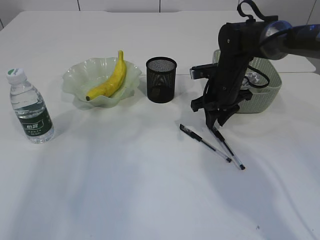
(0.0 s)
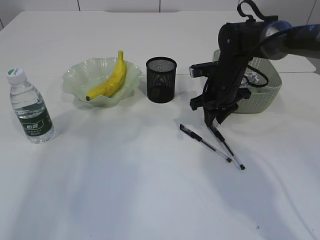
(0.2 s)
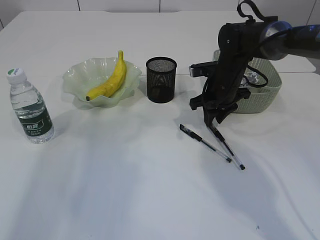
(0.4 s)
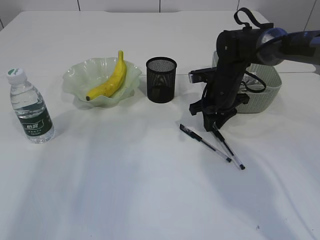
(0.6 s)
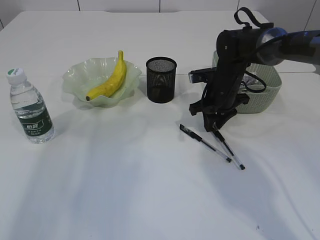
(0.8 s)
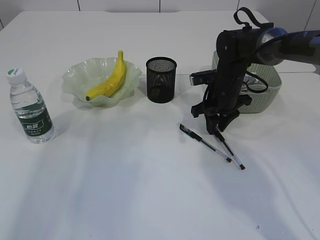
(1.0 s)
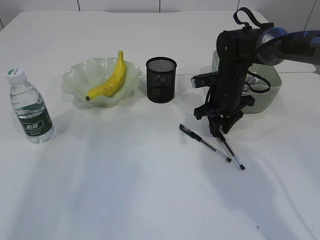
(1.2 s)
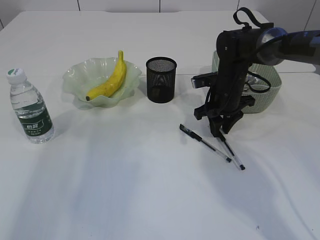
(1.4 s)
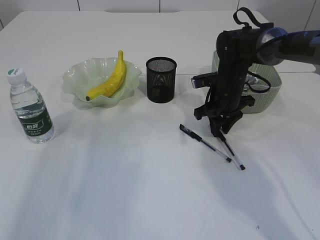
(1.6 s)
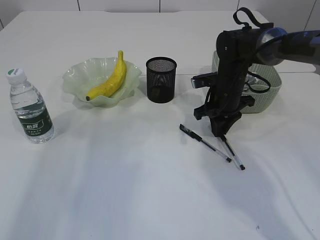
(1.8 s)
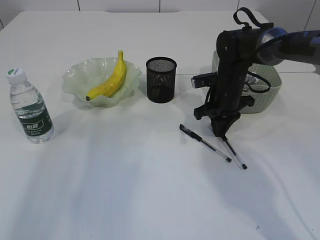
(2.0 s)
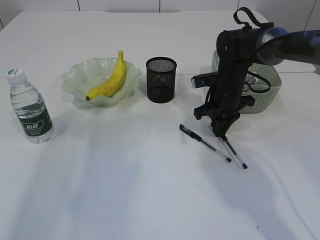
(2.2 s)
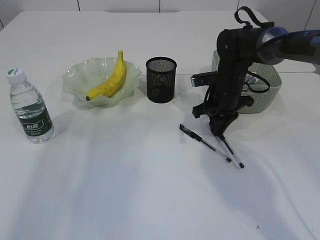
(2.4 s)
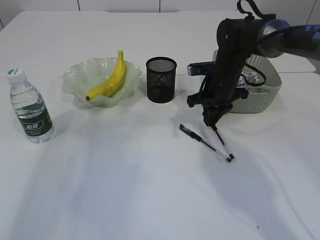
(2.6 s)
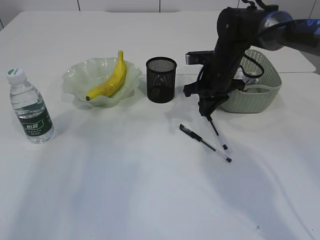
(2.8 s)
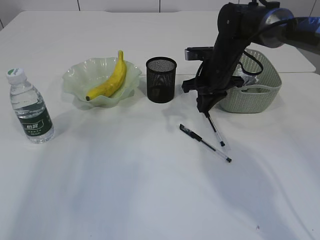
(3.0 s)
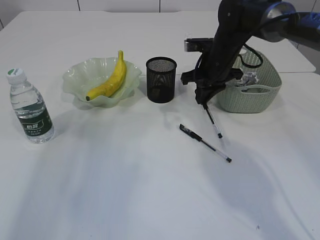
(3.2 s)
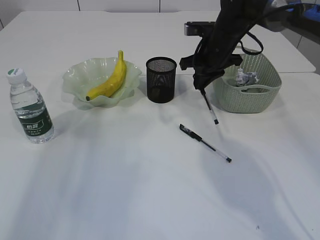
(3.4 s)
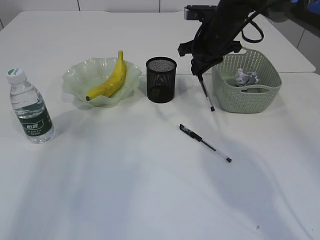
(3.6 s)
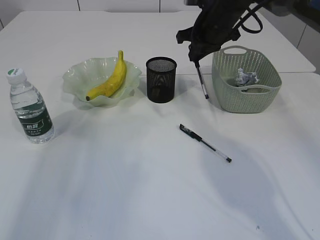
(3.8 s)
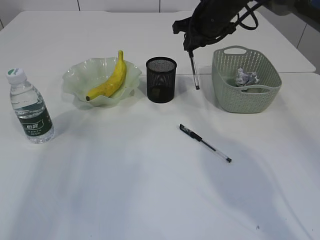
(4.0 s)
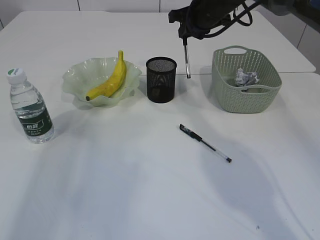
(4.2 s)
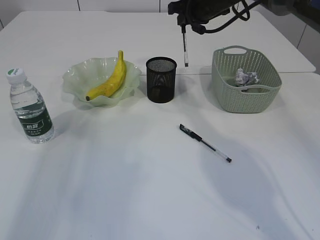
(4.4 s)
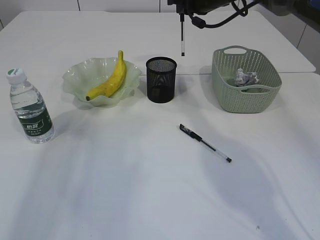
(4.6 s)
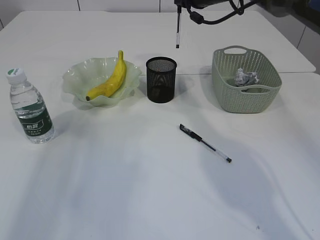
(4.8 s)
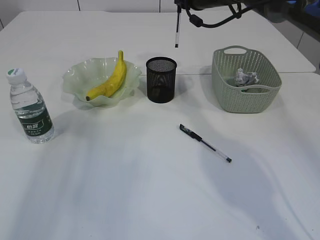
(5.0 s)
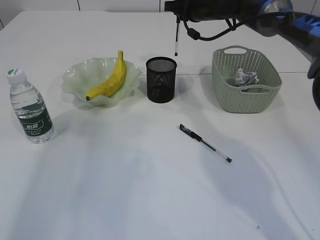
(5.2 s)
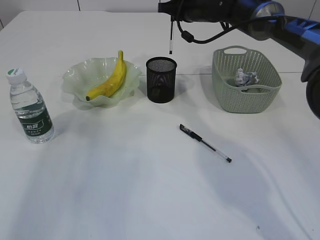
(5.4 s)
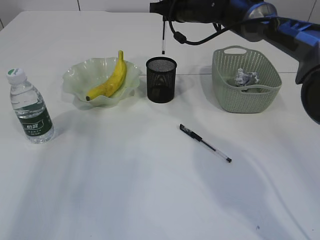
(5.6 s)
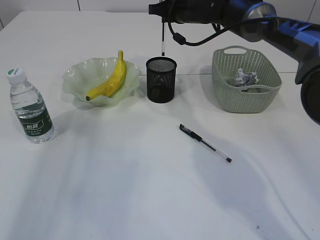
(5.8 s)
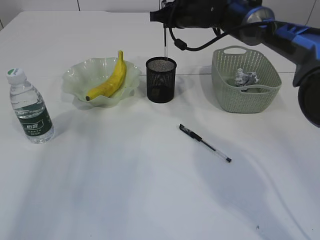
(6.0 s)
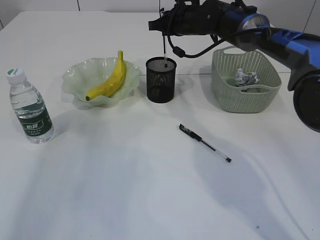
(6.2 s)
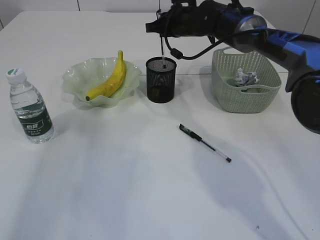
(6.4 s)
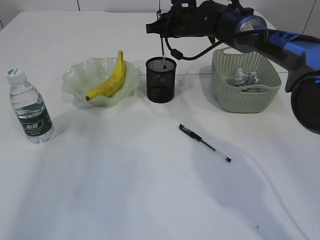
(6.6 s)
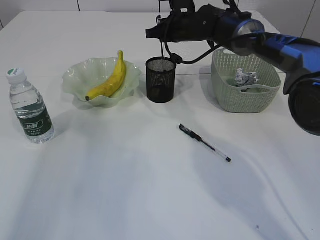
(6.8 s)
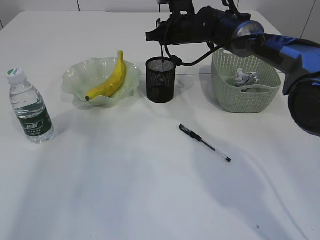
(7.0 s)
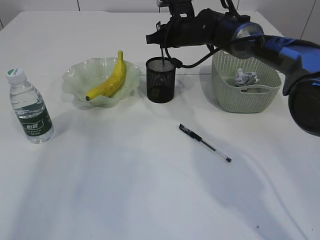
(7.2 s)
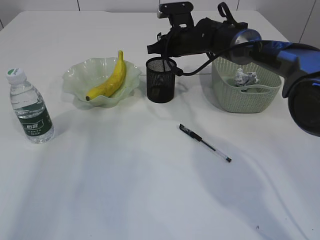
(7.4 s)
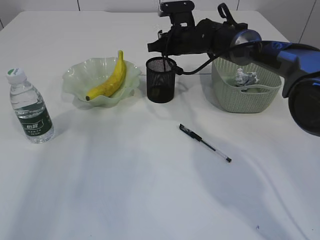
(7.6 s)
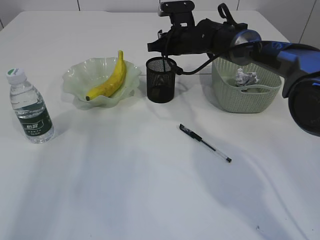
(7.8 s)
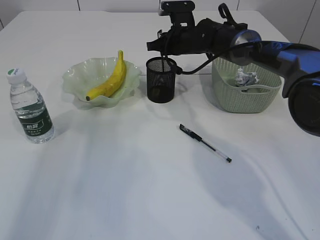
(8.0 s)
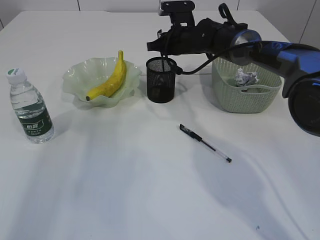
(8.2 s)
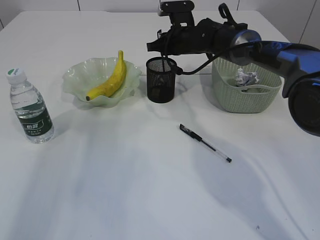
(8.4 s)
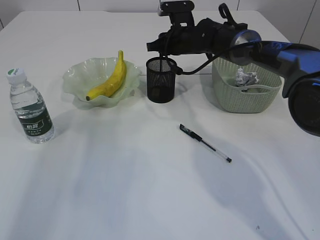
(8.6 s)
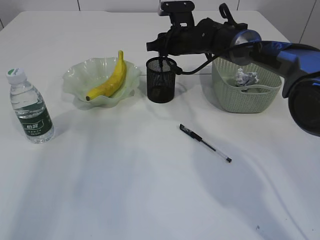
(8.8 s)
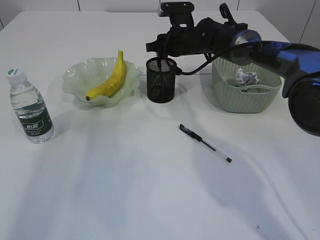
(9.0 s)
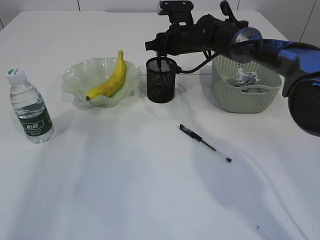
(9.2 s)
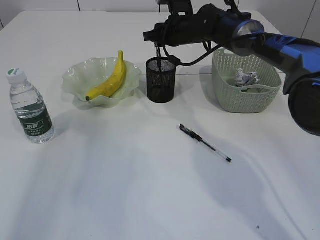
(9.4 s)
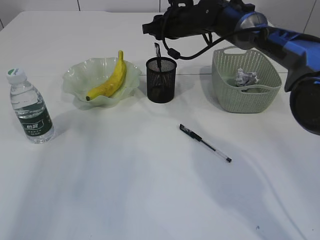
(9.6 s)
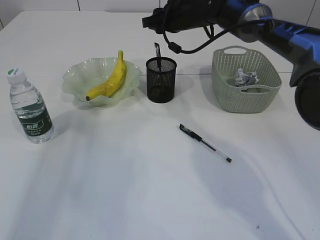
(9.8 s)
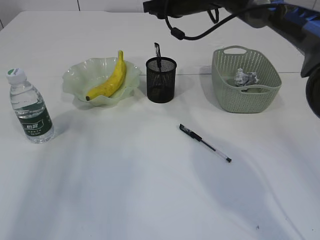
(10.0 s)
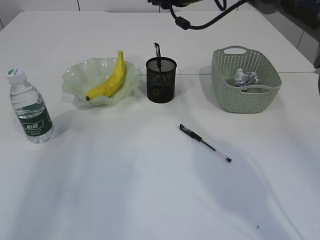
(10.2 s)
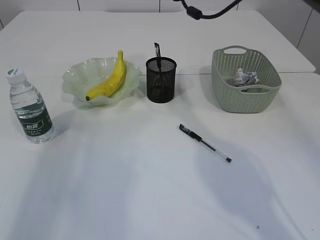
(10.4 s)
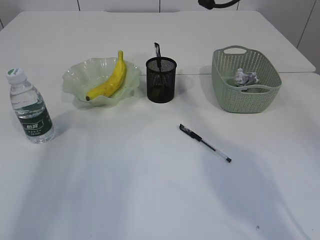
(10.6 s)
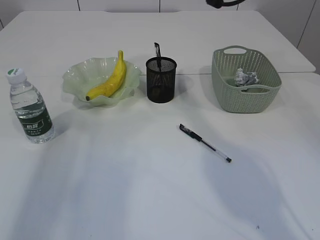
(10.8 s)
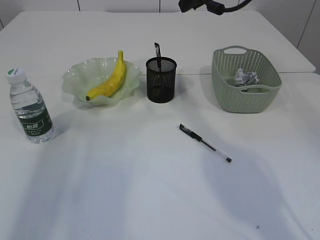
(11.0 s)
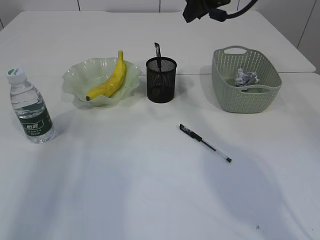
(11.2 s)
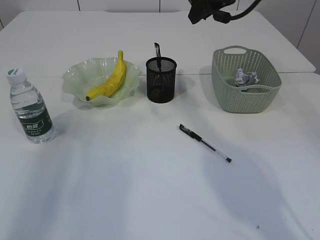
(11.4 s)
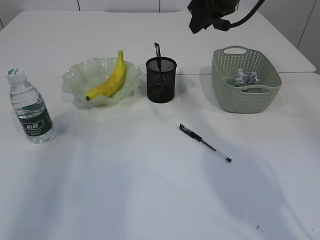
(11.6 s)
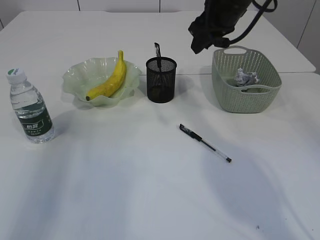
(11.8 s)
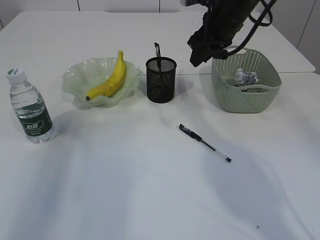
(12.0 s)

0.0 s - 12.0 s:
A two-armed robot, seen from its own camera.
Step, 0.0 s - 3.4 s: Pick up the pen with right arm.
Step, 3.6 s - 9.4 s: Place the pen into the pen holder.
0.0 s - 1.6 s: The grippers stay close to where they were, moving slightly.
1.6 s - 3.0 s: The right gripper moves about 5 cm.
3.0 s - 4.4 s: The right gripper shifts about 10 cm upward and forward.
4.4 s - 6.0 s: The right gripper moves roughly 5 cm.
6.0 s - 7.6 s: The right gripper moves downward, some 5 cm.
7.6 s - 9.0 s: The right gripper opens.
9.0 s - 10.4 s: The right gripper shifts about 15 cm upward.
10.4 s - 12.0 s: The right gripper is displaced downward by roughly 5 cm.

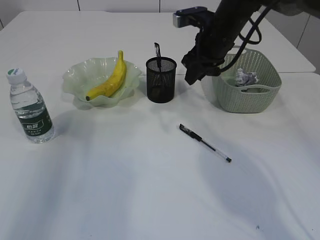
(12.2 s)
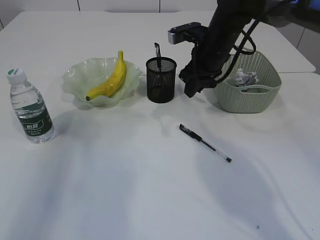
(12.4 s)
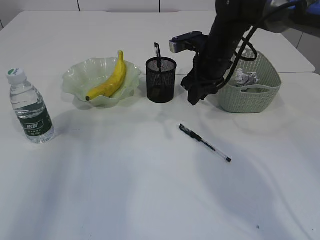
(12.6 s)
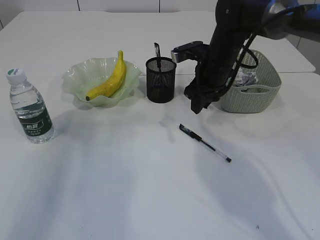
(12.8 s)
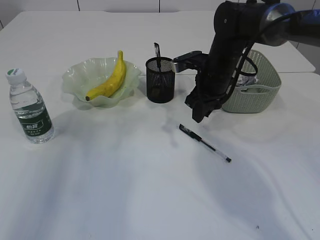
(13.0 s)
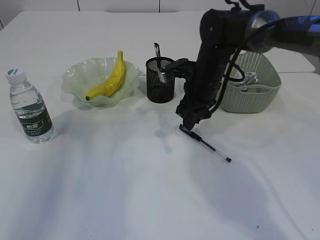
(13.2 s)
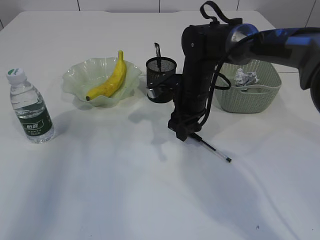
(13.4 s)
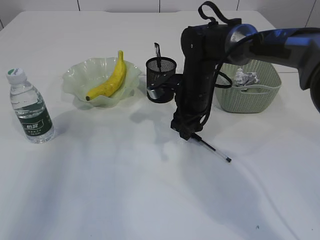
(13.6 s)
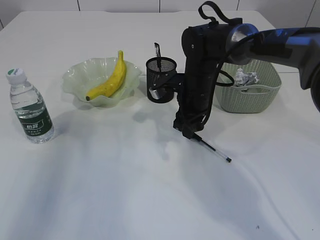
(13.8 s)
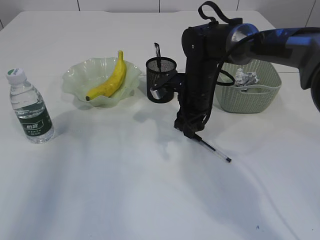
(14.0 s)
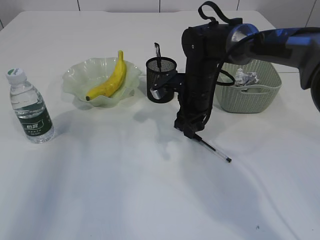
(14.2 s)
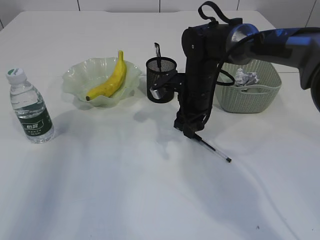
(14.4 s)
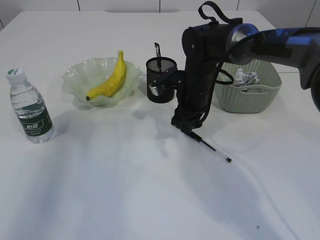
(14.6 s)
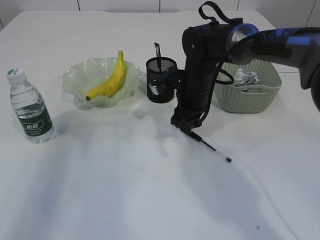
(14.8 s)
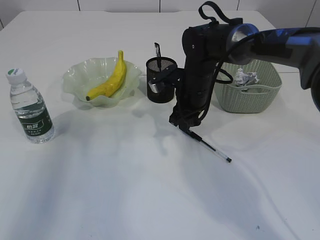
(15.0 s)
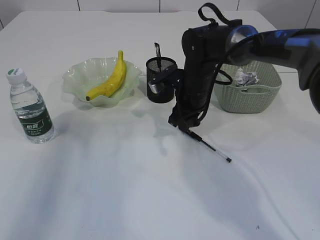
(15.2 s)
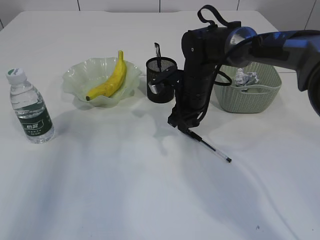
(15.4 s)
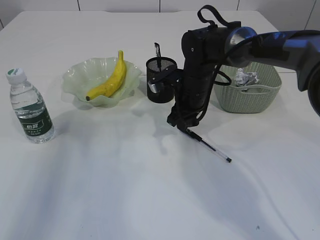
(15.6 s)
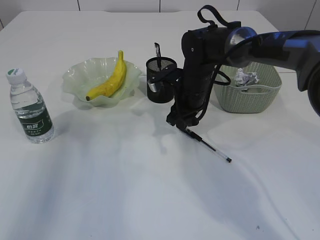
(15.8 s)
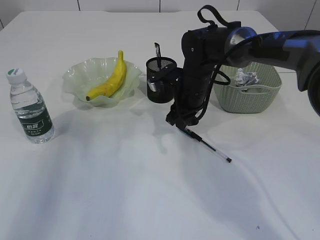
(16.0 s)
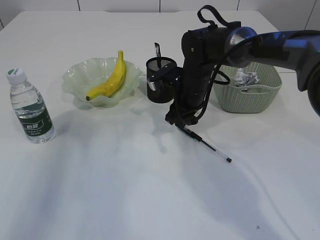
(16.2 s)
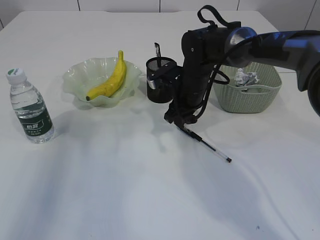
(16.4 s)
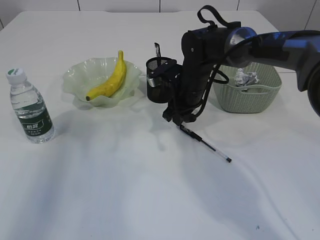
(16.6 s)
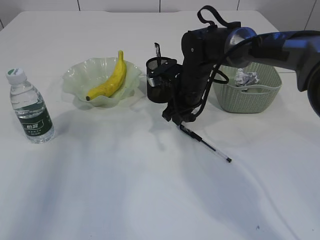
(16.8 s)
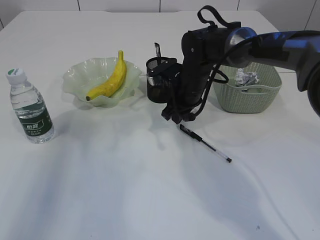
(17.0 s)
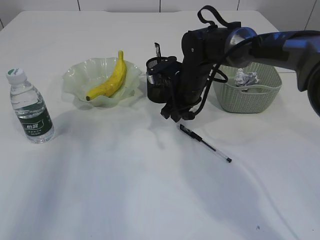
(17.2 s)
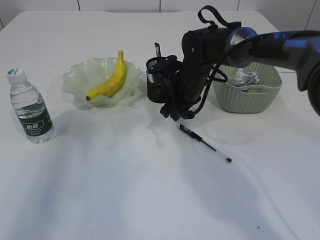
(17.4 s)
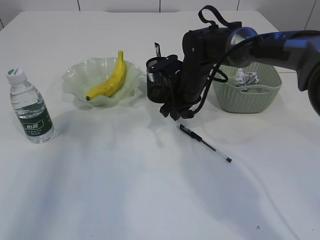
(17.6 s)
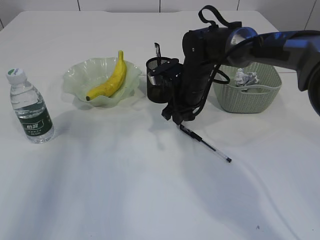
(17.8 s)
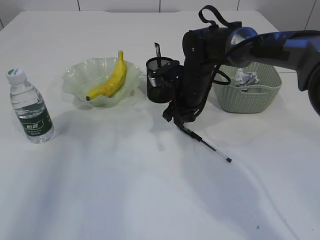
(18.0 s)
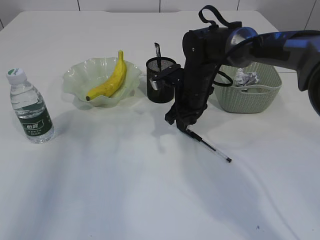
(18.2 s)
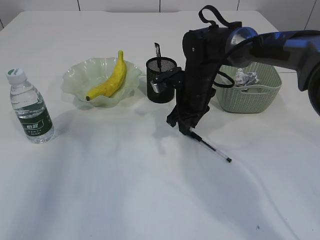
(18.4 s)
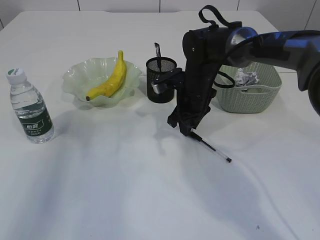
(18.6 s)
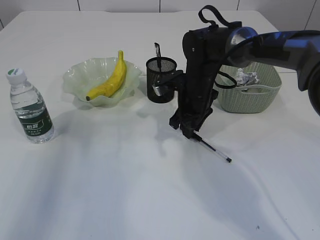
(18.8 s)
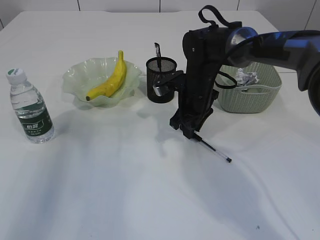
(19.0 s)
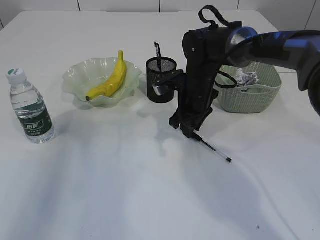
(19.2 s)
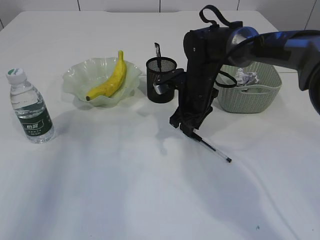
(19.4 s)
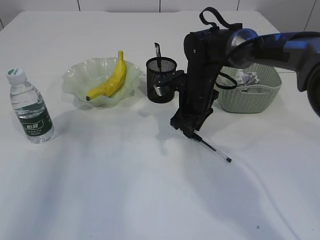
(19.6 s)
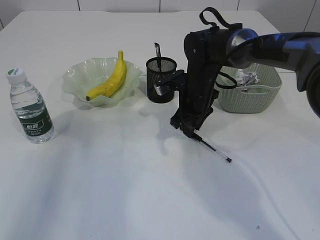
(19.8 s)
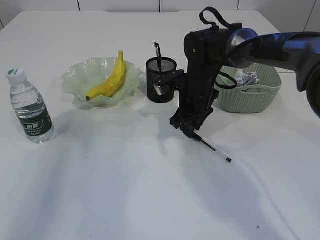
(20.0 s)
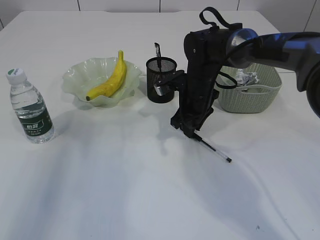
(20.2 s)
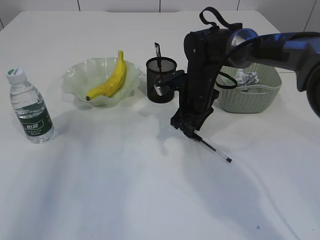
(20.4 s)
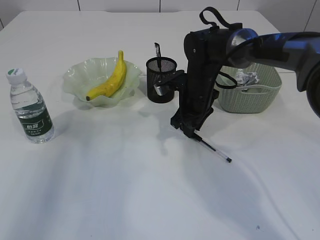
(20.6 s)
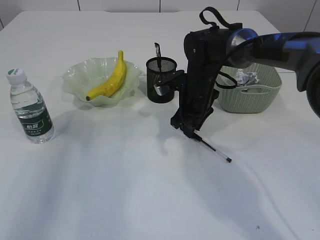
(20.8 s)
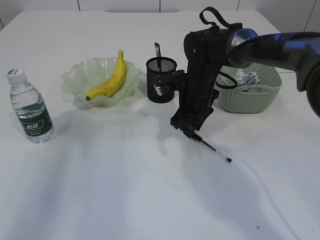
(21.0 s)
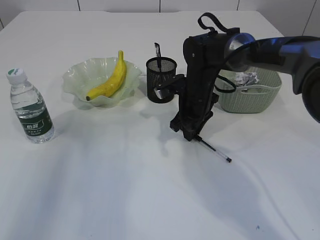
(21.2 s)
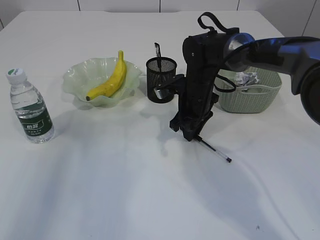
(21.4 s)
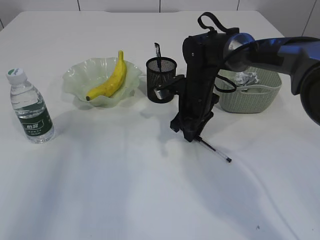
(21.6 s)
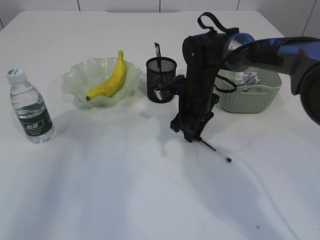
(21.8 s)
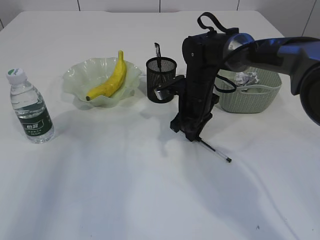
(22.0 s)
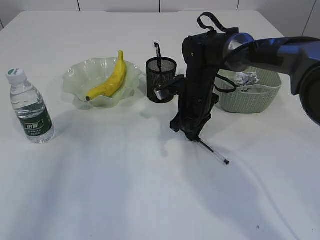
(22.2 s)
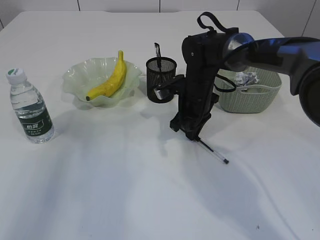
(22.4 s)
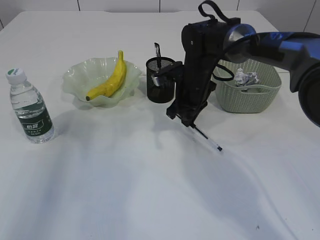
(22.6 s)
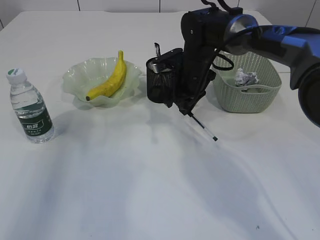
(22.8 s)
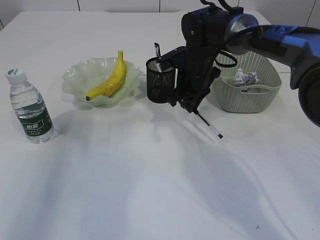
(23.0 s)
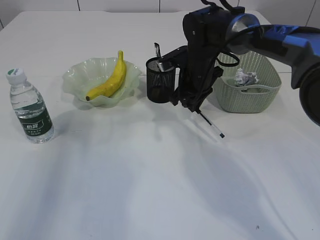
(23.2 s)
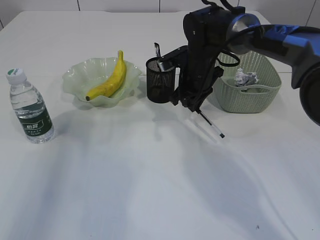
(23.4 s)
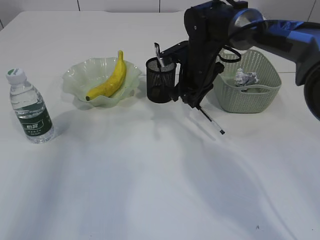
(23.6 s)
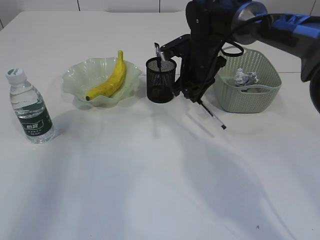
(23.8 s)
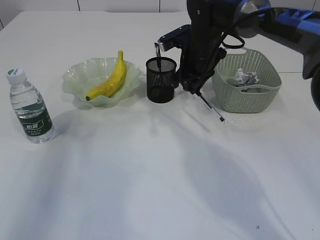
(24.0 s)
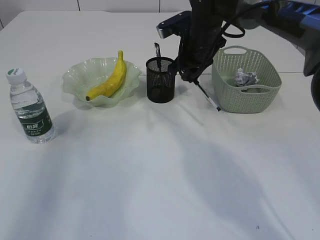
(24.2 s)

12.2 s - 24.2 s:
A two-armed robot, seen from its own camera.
Step, 12.2 s - 23.6 s: Pick up the pen with right arm.
12.2 s - 13.8 s: The right gripper shifts about 10 cm downward.
13.8 s - 19.8 s: The grippers stay close to where they were, moving slightly.
19.8 s - 21.2 s: Neither gripper changes place.
21.2 s - 22.6 s: The right gripper closes its fingers.
22.6 s - 24.2 s: The right gripper travels upward by some 10 cm.
